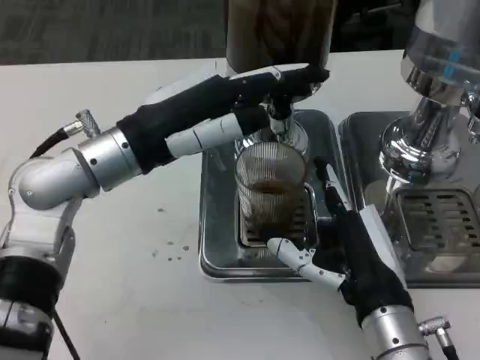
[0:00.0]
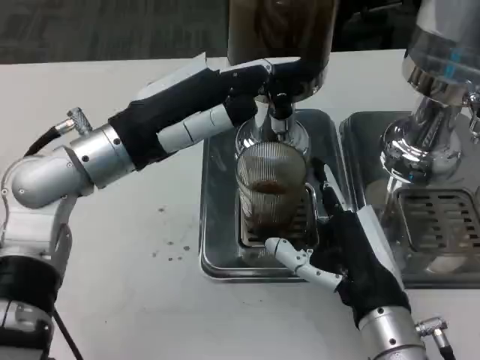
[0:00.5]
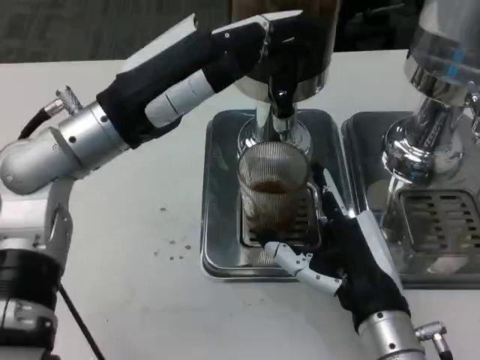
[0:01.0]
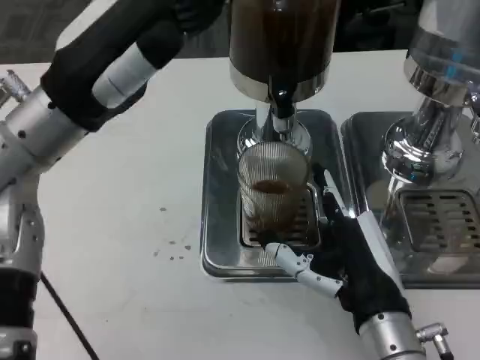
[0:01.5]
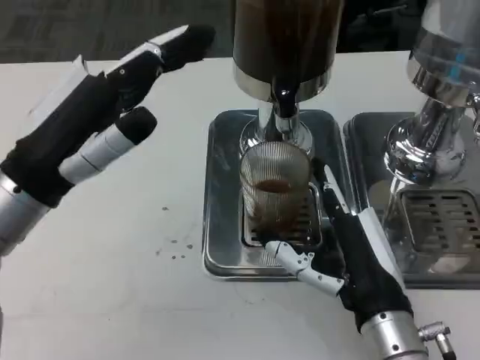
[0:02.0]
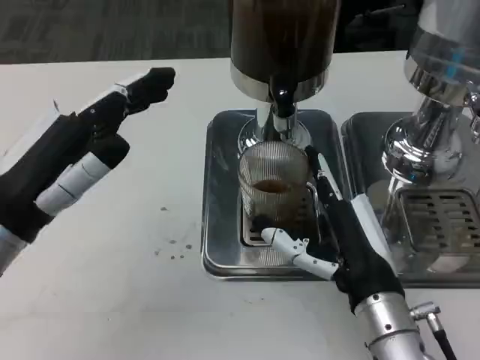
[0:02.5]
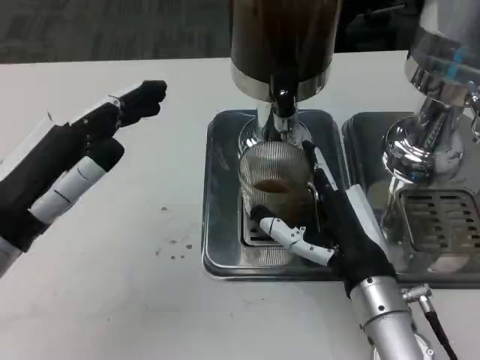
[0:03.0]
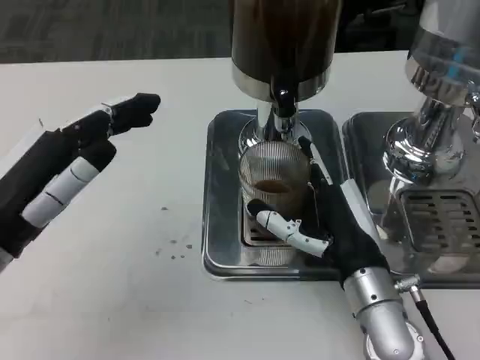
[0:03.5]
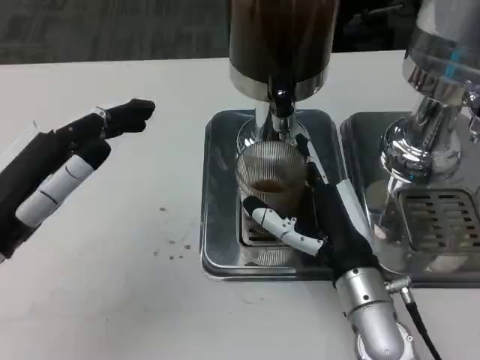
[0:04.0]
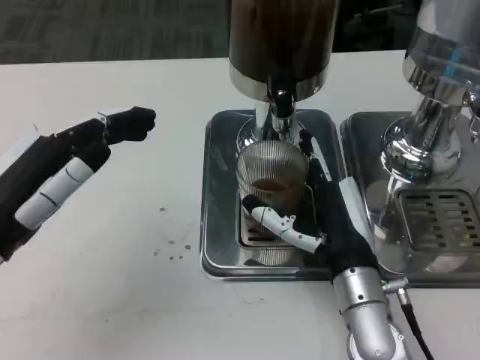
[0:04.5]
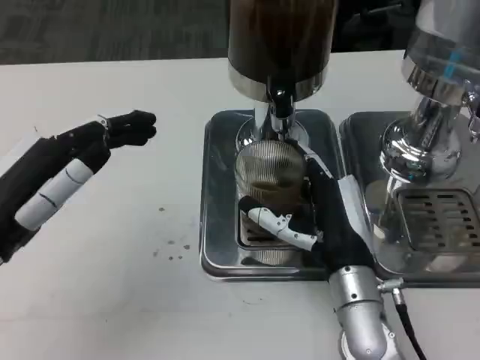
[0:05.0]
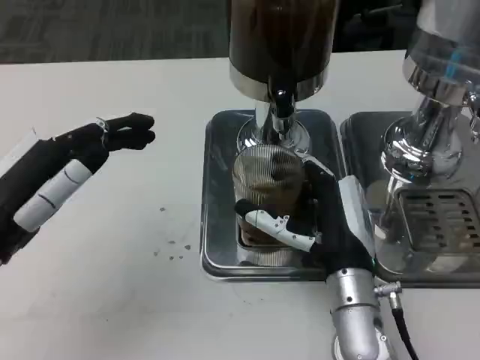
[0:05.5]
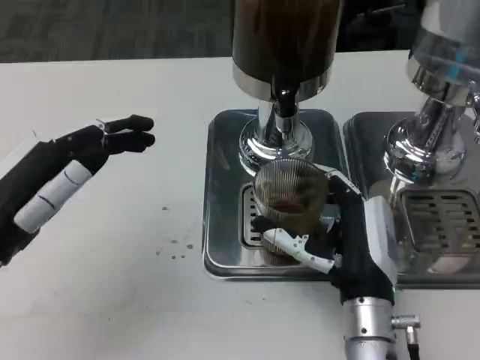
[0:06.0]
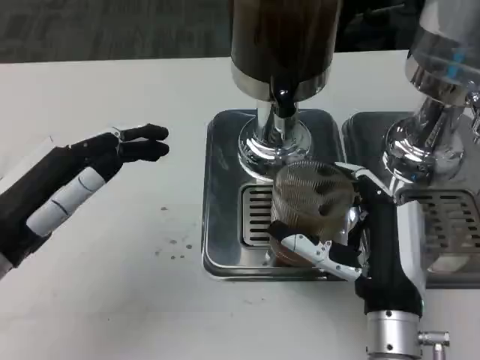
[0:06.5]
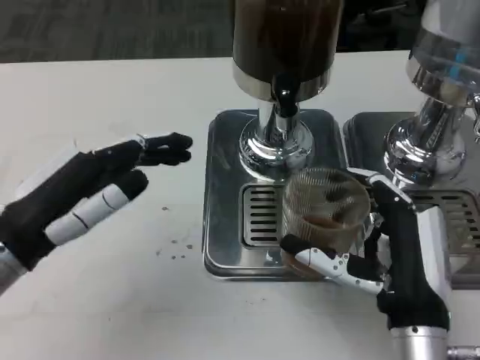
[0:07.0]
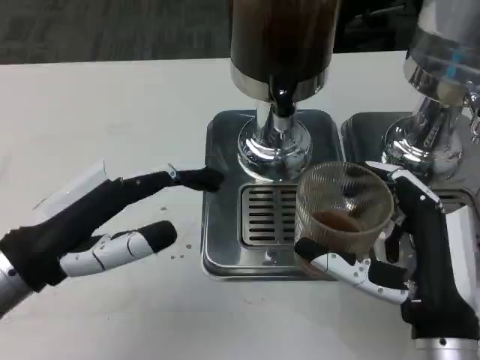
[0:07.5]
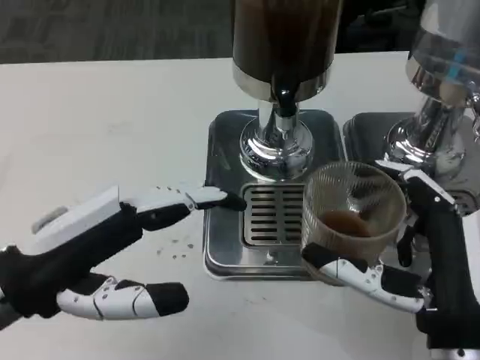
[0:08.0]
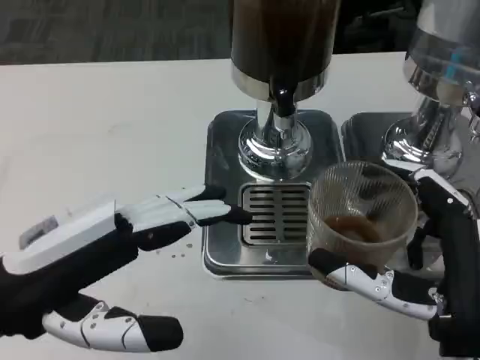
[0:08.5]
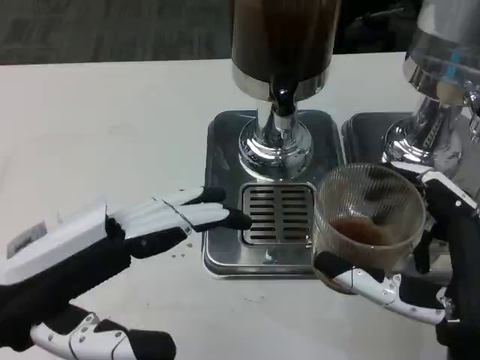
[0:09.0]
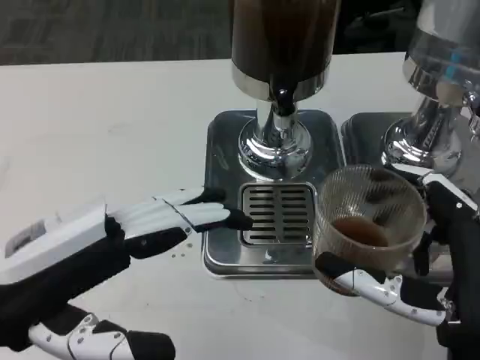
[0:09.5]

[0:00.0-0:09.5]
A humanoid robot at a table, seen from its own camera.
Task of the whole recording: Grasp the cup under the faucet to collect the drink, then remove the cup.
0:00.0 to 0:02.0: The left hand goes about 10 cm backward and to the left.
0:02.0 to 0:04.0: The right hand moves forward, approximately 5 cm. Meanwhile the left hand changes place by approximately 5 cm.
0:04.0 to 0:05.5: The hands stay close to where they were, moving slightly.
0:05.5 to 0:07.5: The right hand goes some 10 cm backward and to the right.
0:07.5 to 0:09.5: The left hand moves approximately 5 cm.

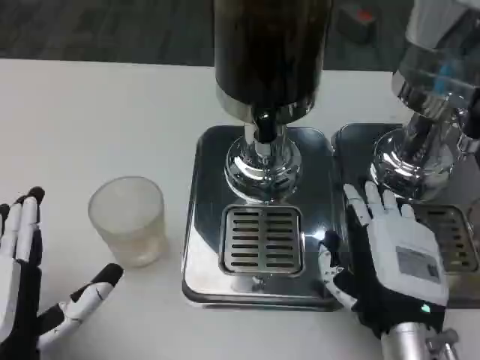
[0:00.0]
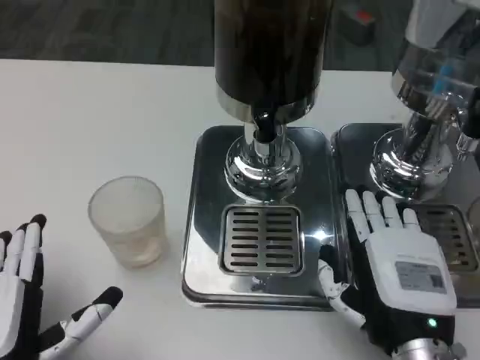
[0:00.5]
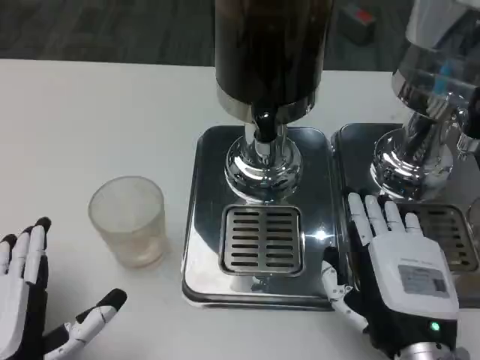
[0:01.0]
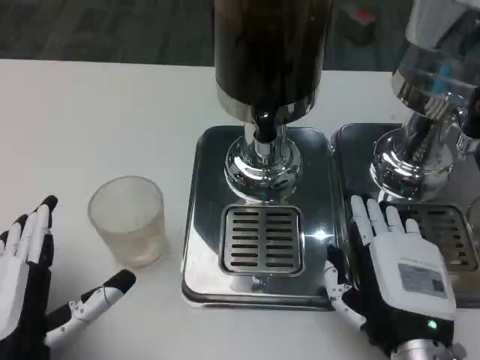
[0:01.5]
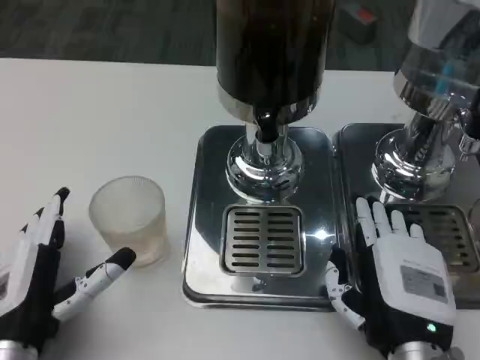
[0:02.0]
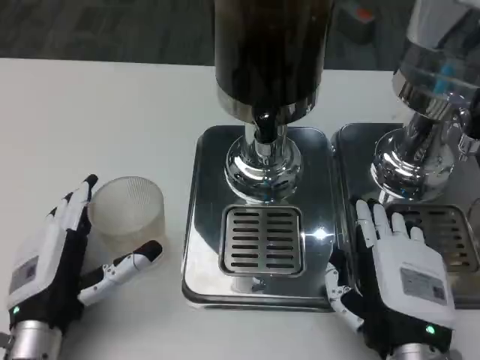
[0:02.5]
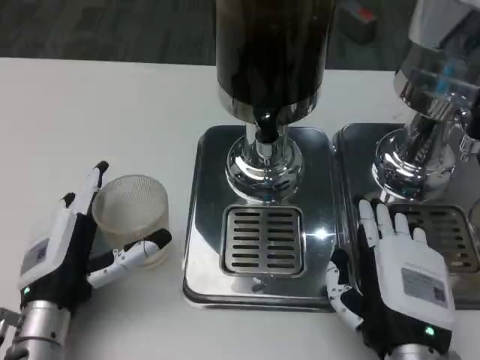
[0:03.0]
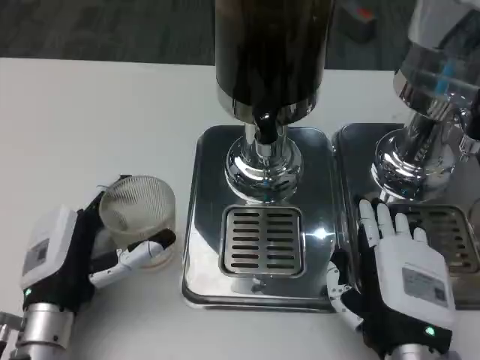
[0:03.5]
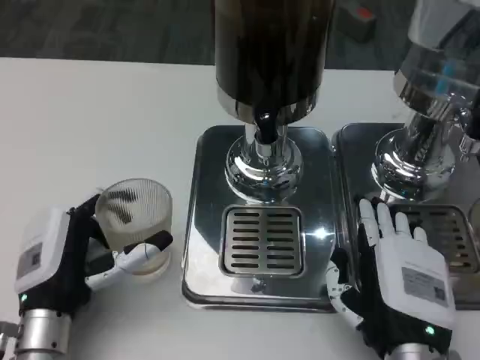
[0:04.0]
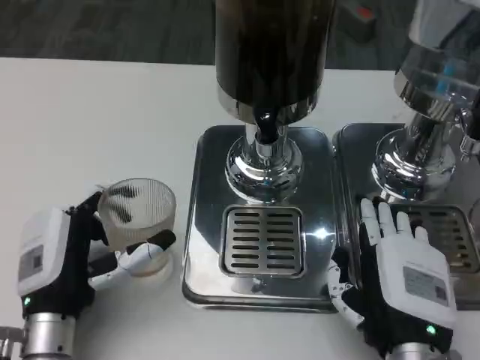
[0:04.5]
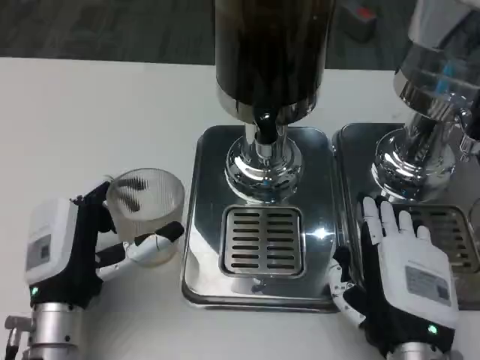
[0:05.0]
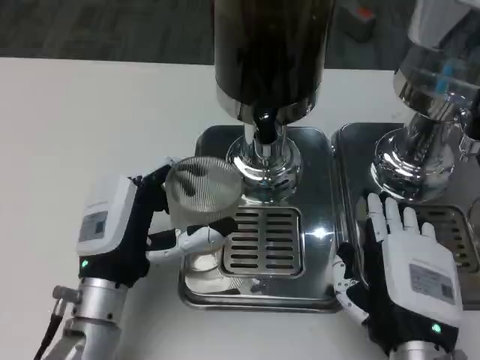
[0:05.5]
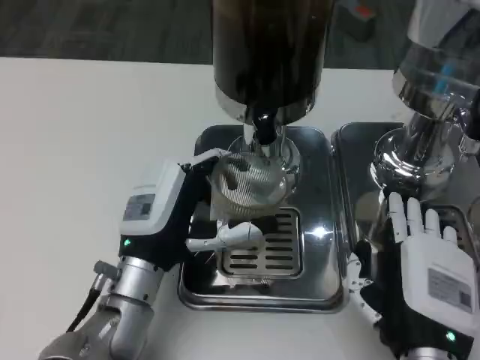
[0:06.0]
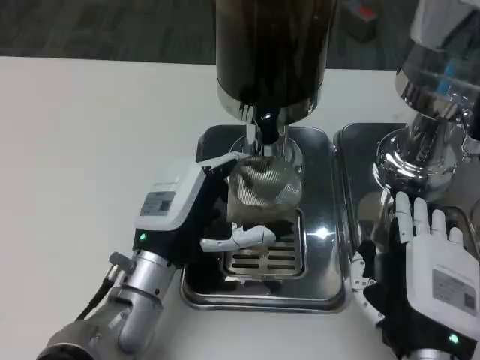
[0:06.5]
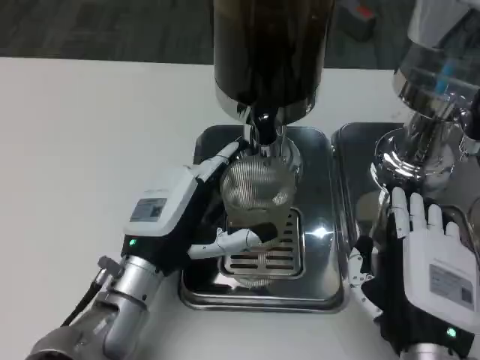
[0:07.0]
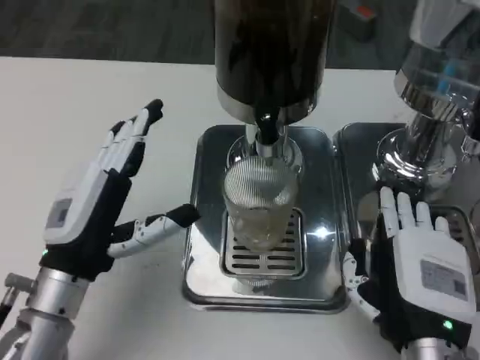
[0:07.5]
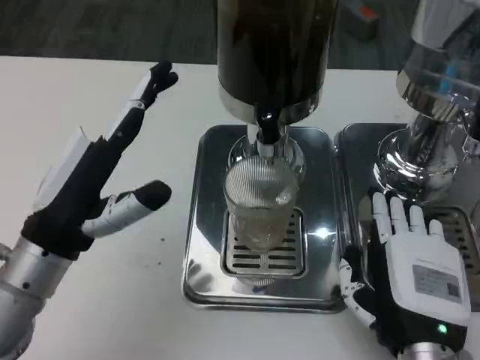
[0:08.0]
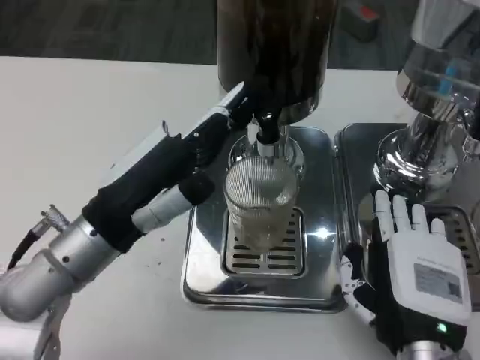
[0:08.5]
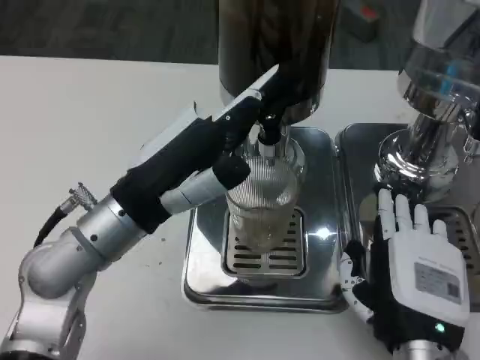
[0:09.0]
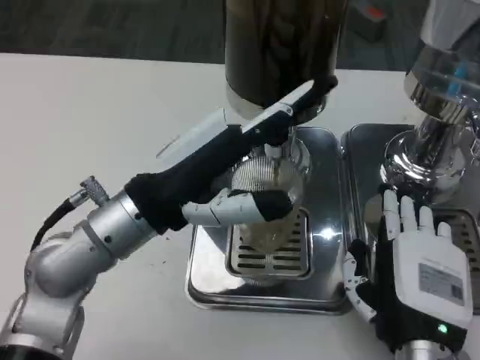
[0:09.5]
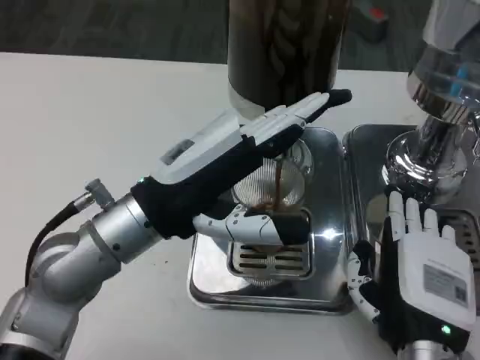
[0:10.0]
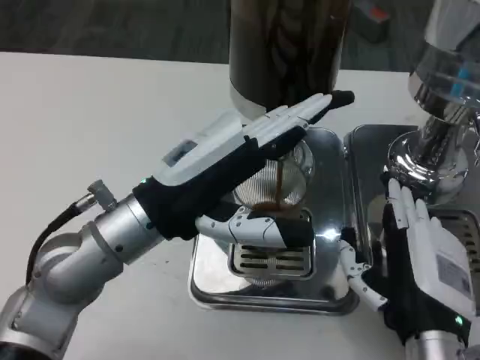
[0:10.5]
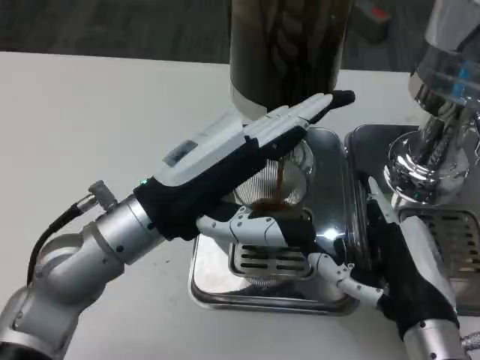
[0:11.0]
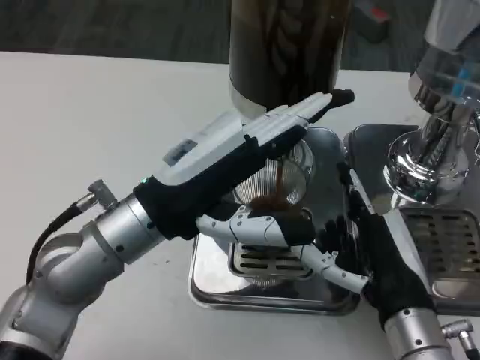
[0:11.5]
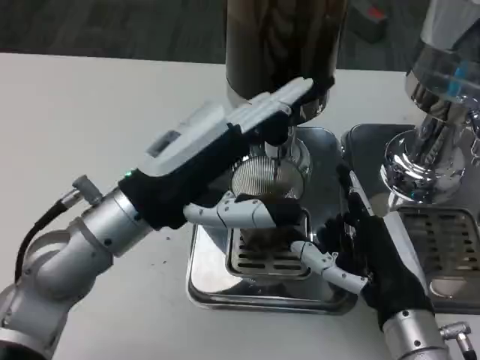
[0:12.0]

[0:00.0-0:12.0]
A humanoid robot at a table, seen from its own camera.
Task of the whole recording: Grasp the cup under the faucet to collect the drink, then remove the cup.
0:00.0 to 0:02.0: The left hand changes place by some 5 cm.
0:02.0 to 0:04.0: The hands make only small movements.
0:04.0 to 0:06.0: The left hand moves to the right and forward, some 10 cm.
0:06.0 to 0:08.0: The left hand moves to the left and upward, roughly 10 cm.
0:08.0 to 0:10.0: The left hand travels to the right by roughly 5 cm.

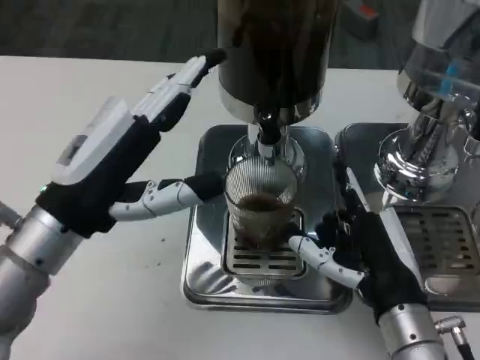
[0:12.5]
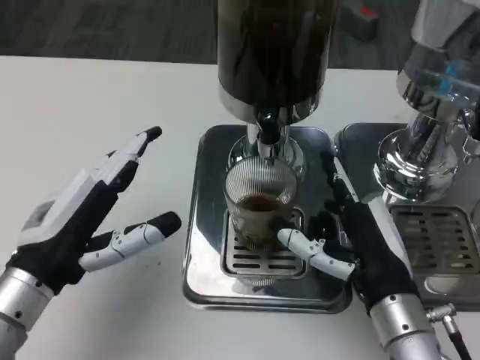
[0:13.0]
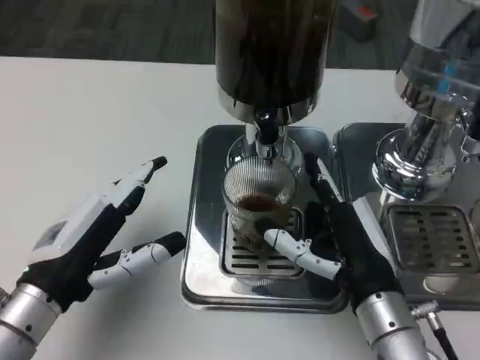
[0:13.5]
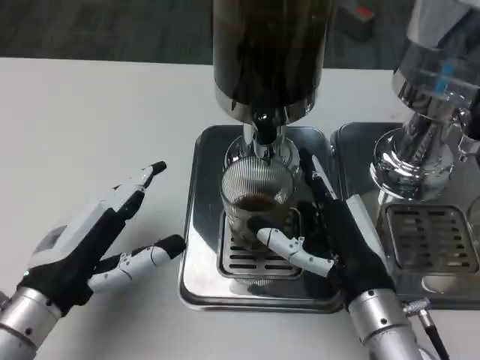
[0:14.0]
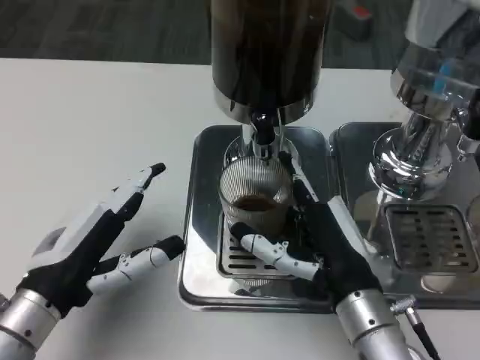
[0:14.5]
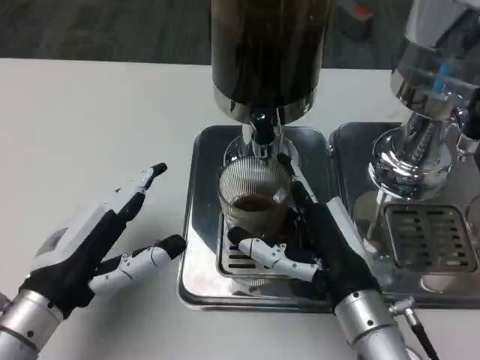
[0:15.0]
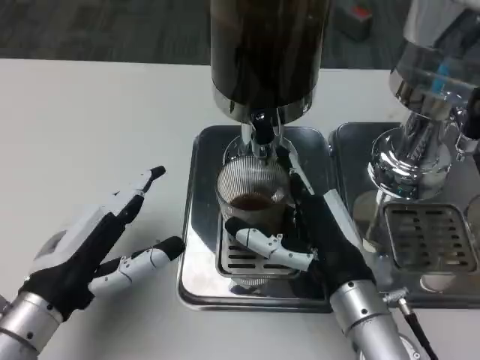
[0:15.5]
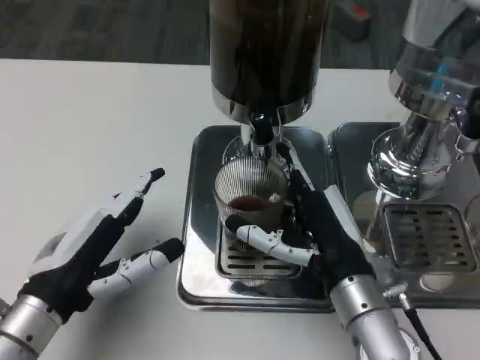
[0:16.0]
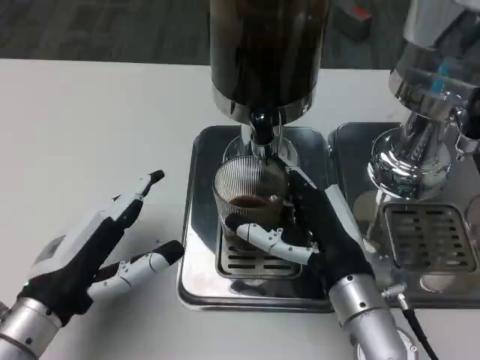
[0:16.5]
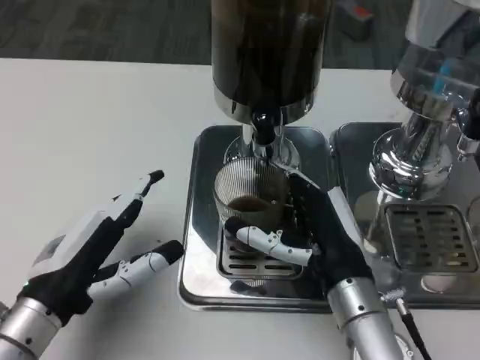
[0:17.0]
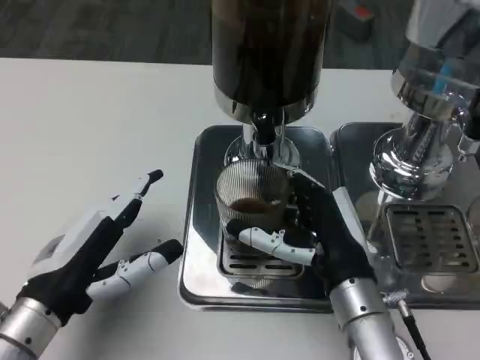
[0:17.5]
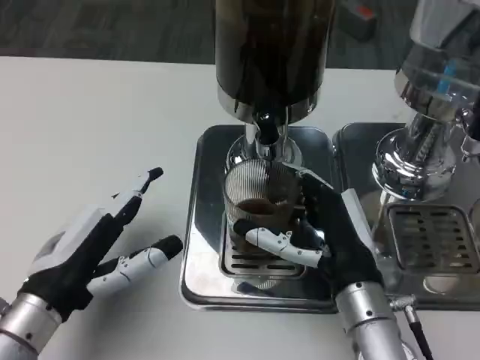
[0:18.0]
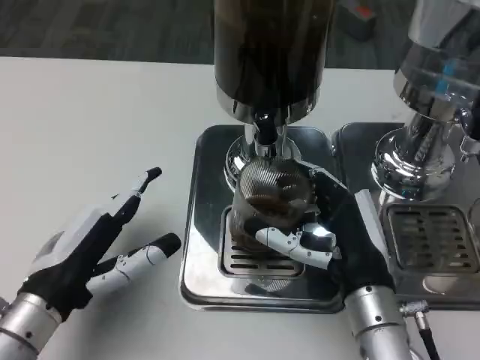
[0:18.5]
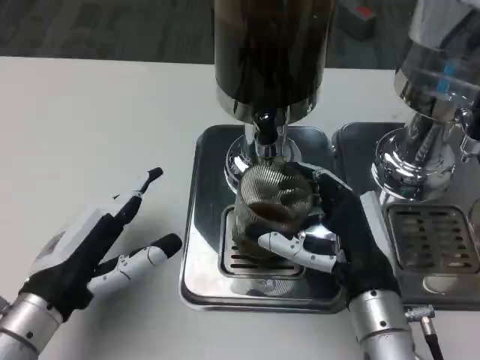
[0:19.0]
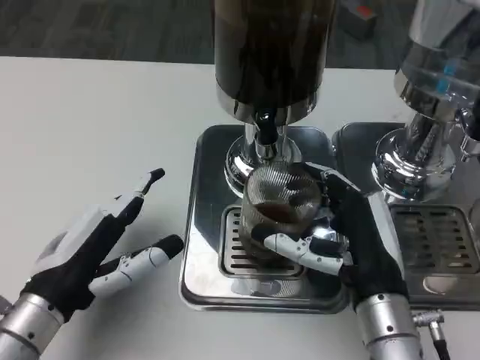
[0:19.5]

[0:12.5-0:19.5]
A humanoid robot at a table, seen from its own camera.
Task of the whole recording: Grasp the cup under the faucet to collect the drink, then remove the cup.
0:12.5 to 0:14.5: The left hand shifts approximately 5 cm downward.
0:14.5 to 0:19.5: The hands make only small movements.
